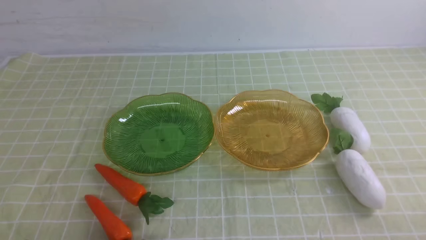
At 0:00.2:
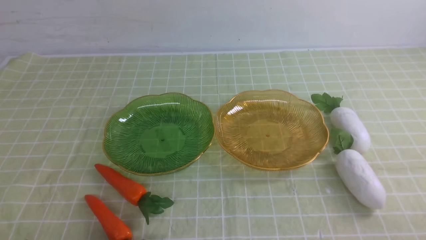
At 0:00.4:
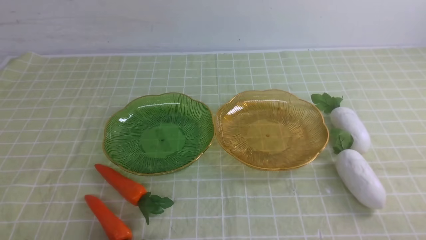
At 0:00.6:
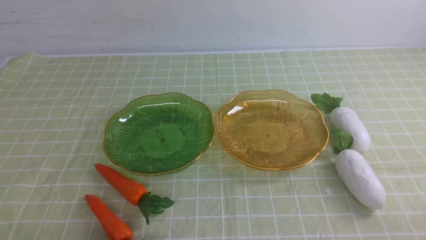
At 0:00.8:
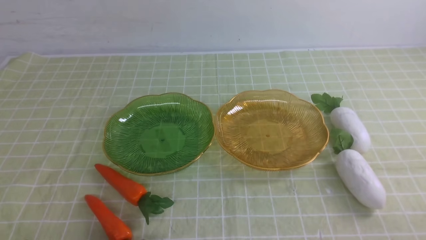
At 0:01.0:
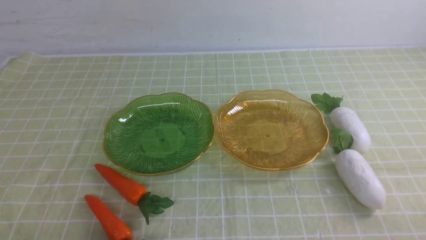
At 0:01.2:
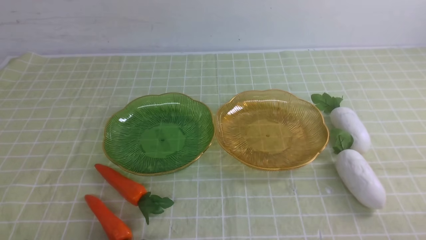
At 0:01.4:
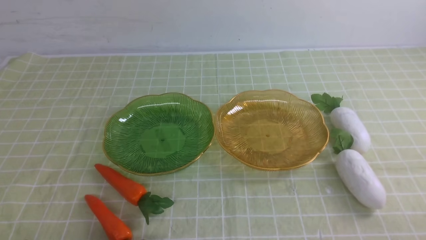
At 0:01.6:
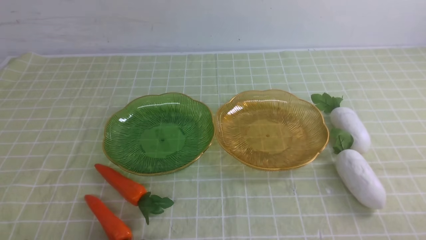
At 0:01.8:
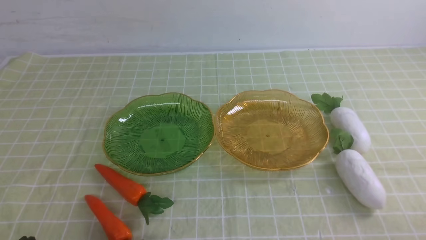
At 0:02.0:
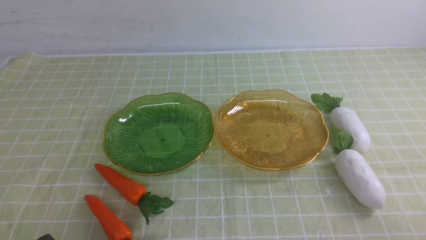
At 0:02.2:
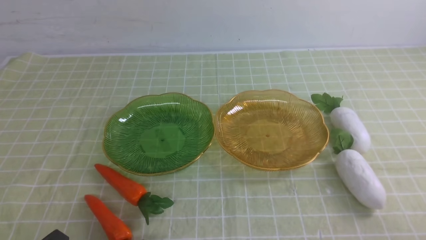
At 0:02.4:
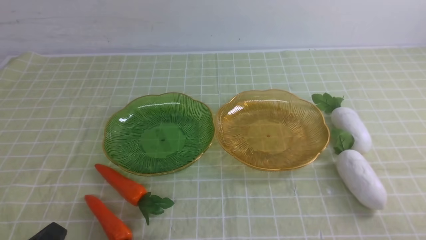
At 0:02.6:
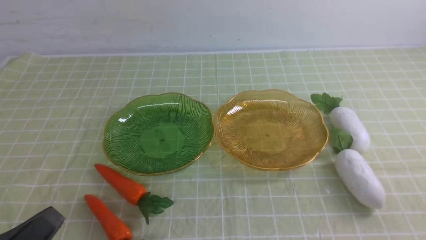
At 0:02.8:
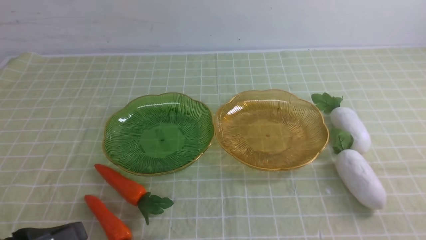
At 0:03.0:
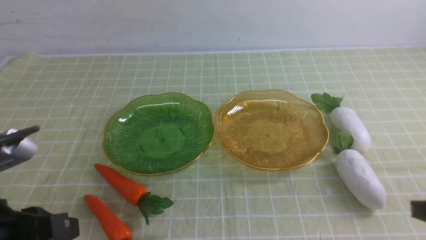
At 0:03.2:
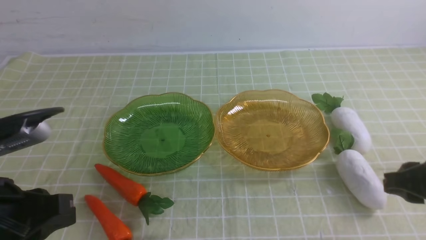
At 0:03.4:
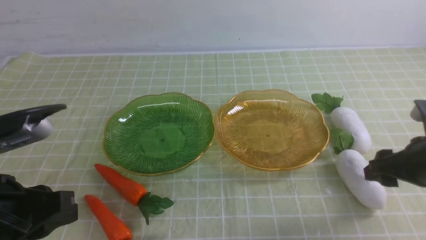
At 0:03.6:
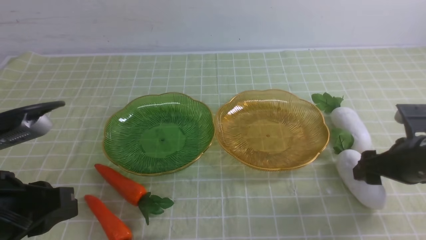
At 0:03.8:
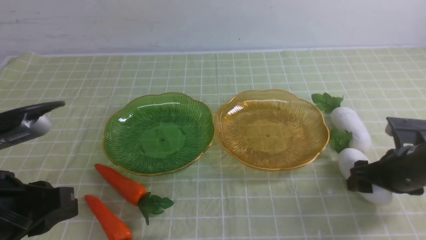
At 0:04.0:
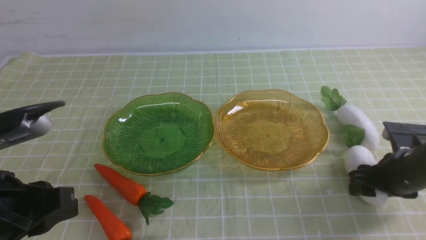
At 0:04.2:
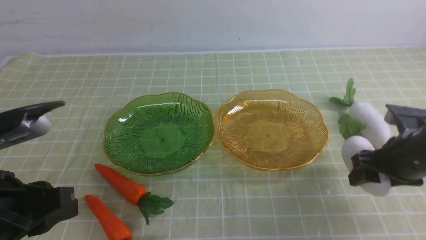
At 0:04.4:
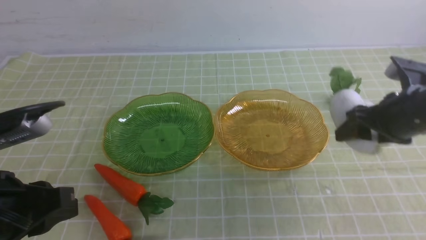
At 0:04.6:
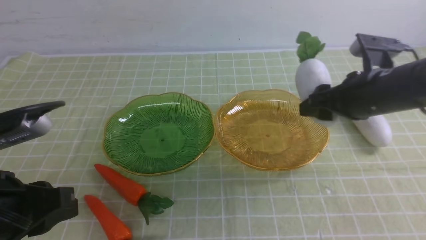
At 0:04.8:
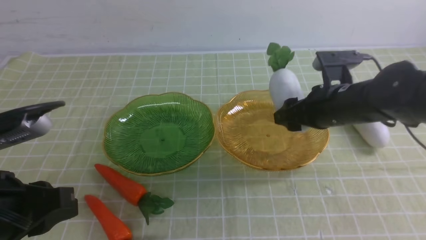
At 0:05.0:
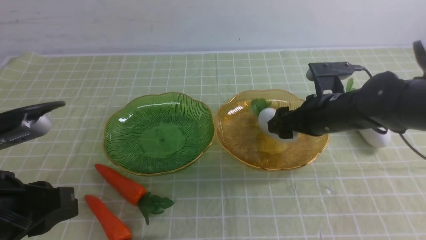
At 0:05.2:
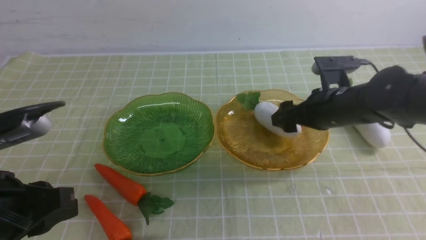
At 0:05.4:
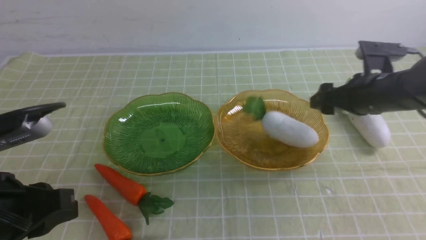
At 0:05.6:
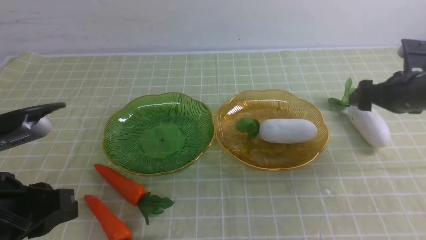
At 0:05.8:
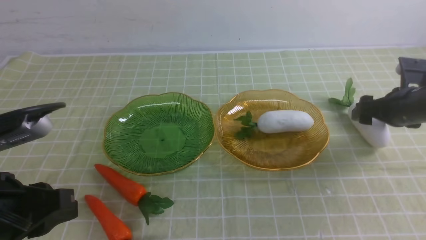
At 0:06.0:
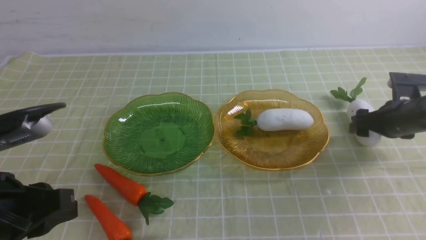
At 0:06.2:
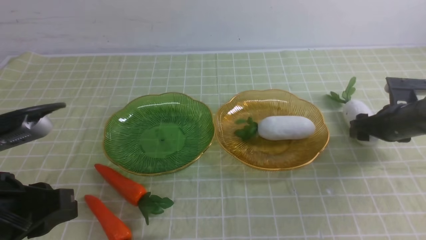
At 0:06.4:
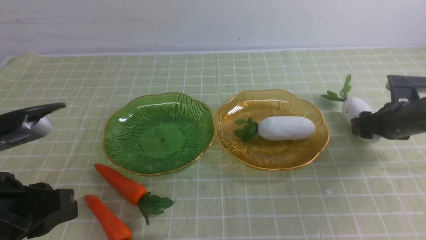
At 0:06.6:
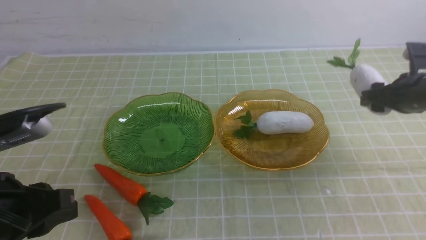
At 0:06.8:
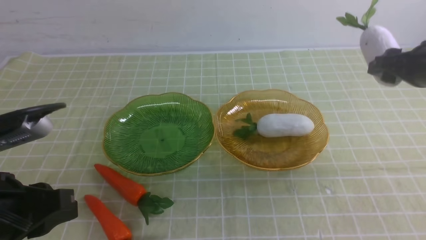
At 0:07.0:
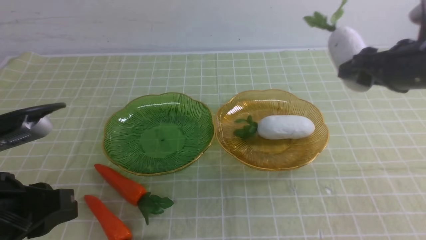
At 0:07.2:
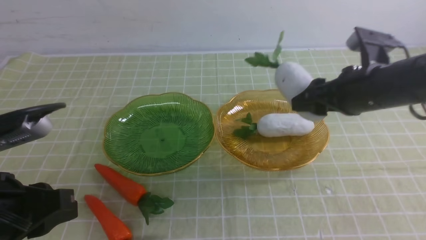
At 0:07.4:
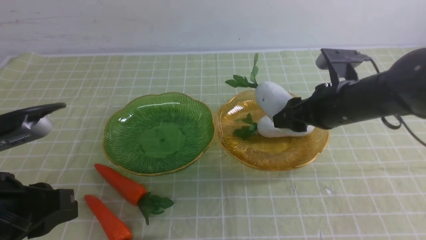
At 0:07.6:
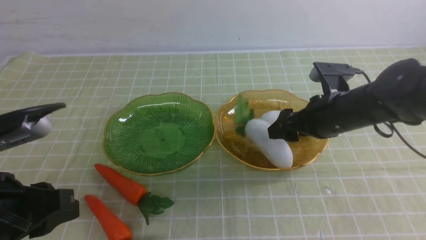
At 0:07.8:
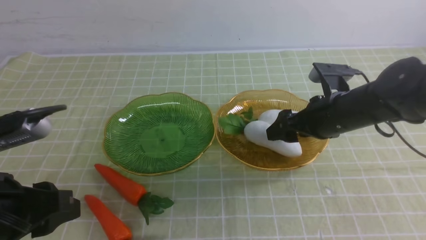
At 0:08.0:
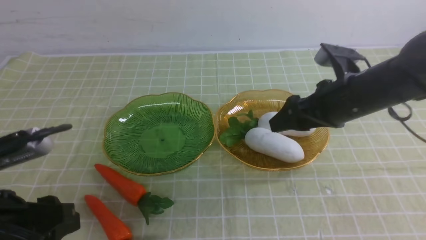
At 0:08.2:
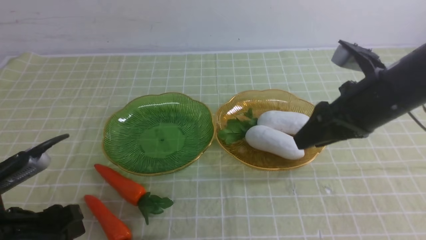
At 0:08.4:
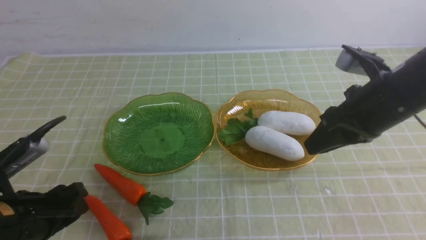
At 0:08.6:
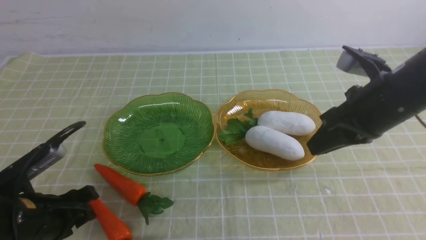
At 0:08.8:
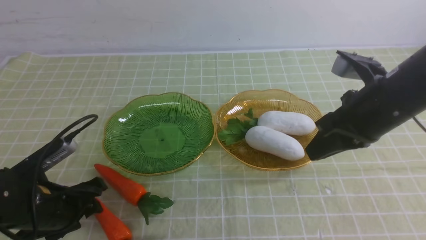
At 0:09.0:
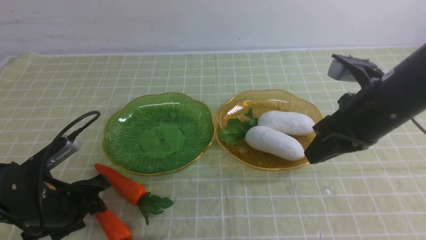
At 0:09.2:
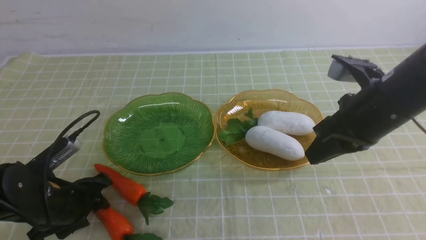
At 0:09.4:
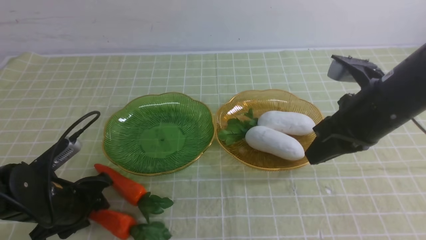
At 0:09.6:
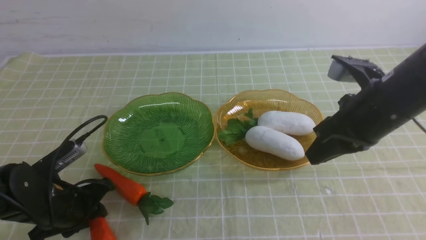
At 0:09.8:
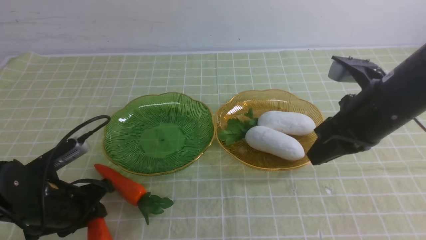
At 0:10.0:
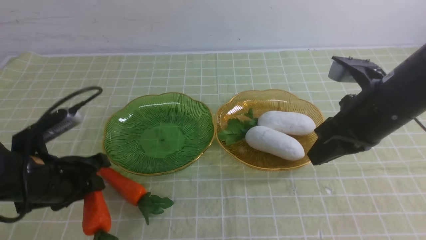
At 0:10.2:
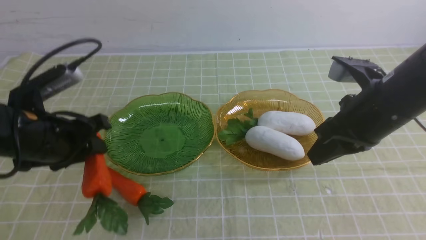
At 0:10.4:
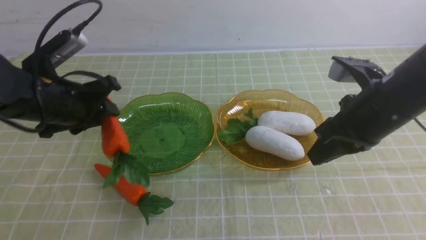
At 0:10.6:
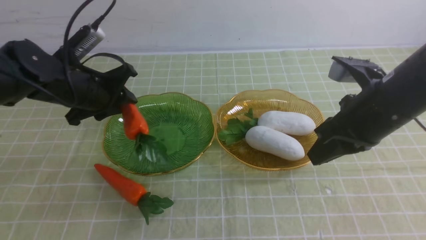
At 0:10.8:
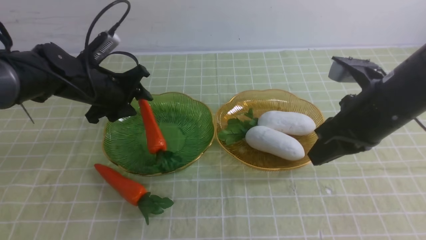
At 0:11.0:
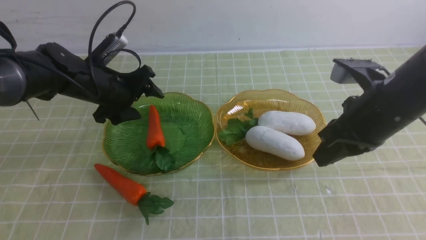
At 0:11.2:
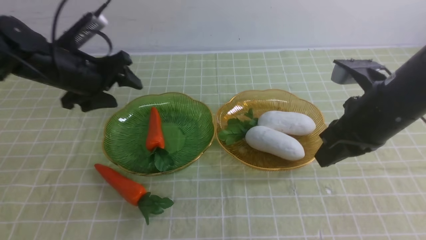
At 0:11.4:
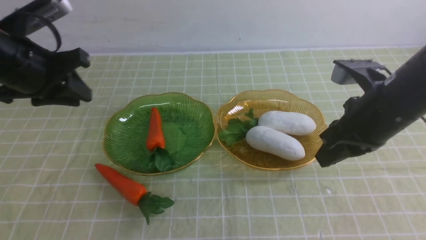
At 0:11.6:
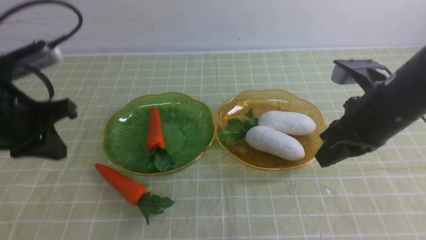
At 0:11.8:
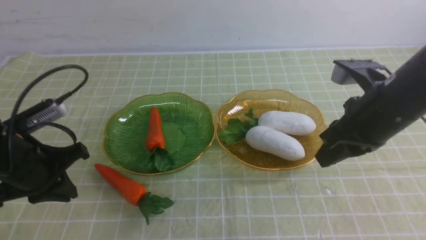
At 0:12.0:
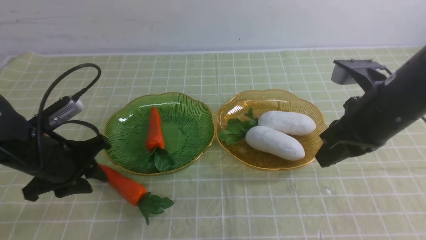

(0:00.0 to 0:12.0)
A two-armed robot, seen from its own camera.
Step, 0:00.0 - 0:08.2: use the right arm to grab a radish and put it into the right plate.
0:00.0 - 0:01.6: The two grippers keep their place.
0:01.6 - 0:03.0: The left gripper moves upward and forward, about 15 cm.
0:03.0 - 0:04.4: The right gripper goes some 15 cm forward, and opens up.
0:04.4 - 0:06.0: The right gripper heads downward, to the right and forward, covering approximately 15 cm.
0:06.0 - 0:07.6: The right gripper goes about 15 cm to the left and upward.
0:07.6 - 0:09.0: The left gripper goes approximately 15 cm downward and forward. Meanwhile the right gripper moves upward and backward, roughly 10 cm, and closes.
0:09.0 - 0:10.4: The left gripper goes approximately 15 cm upward and forward.
0:10.4 - 0:12.0: The left gripper goes some 5 cm downward, goes forward and returns, approximately 10 cm each way, and opens and closes again.

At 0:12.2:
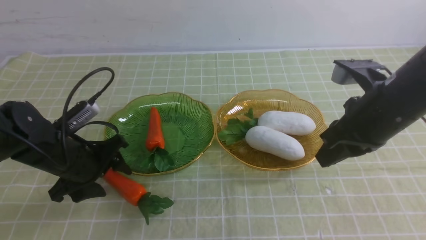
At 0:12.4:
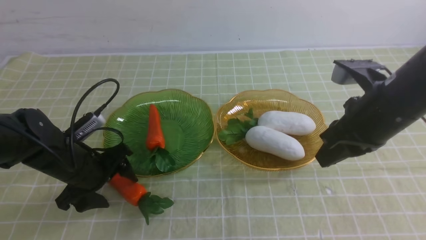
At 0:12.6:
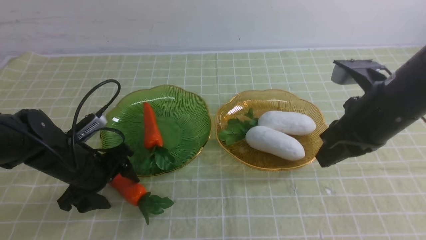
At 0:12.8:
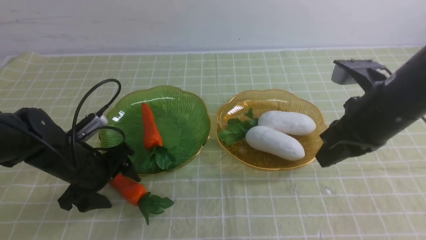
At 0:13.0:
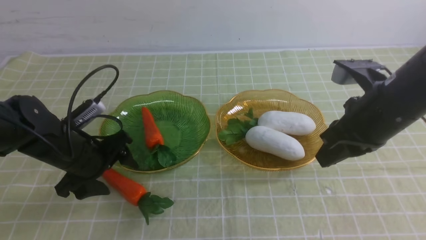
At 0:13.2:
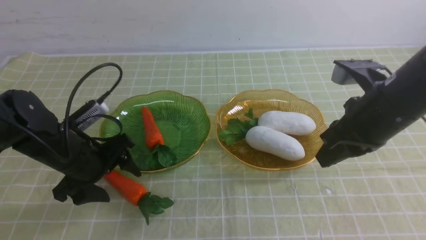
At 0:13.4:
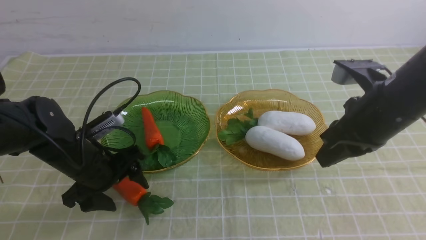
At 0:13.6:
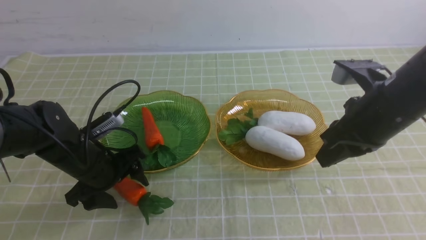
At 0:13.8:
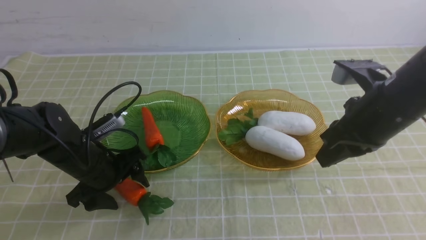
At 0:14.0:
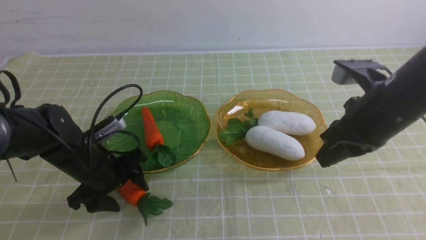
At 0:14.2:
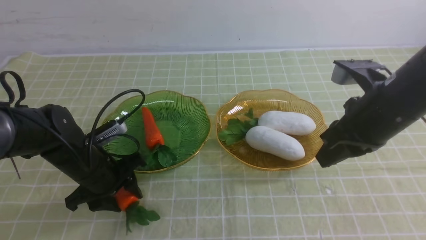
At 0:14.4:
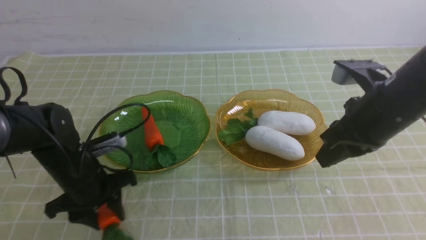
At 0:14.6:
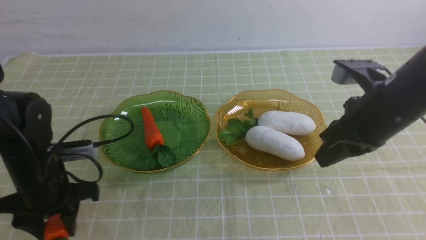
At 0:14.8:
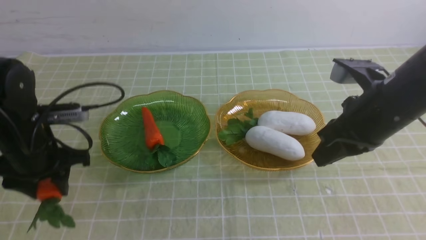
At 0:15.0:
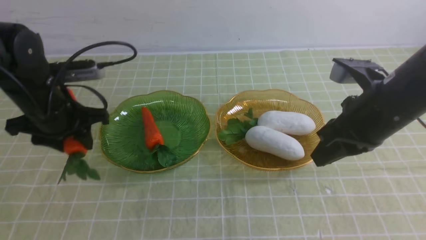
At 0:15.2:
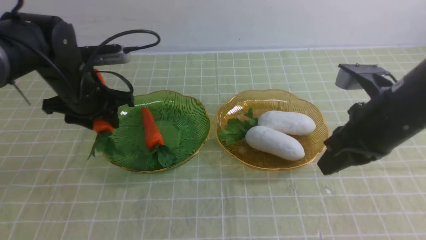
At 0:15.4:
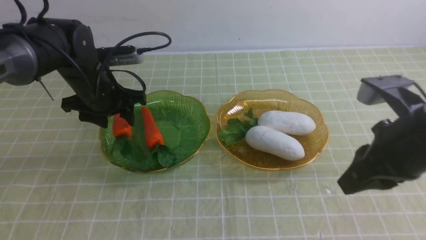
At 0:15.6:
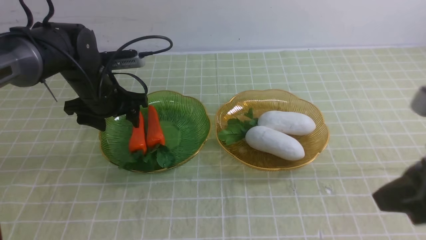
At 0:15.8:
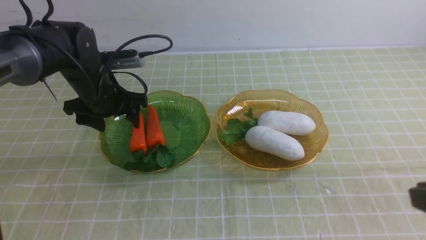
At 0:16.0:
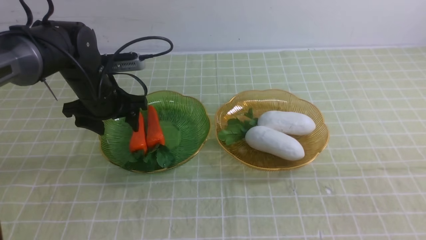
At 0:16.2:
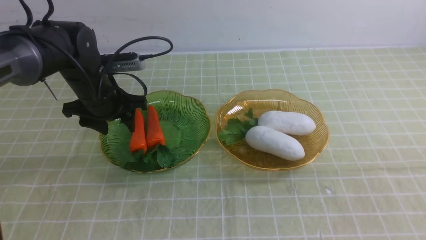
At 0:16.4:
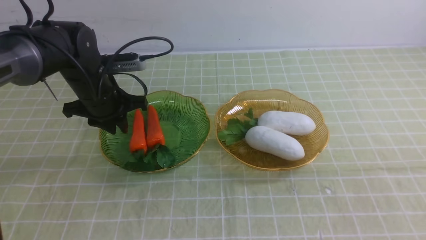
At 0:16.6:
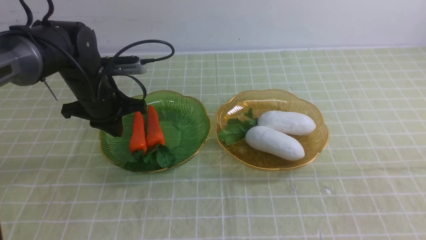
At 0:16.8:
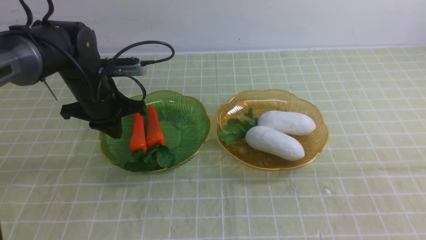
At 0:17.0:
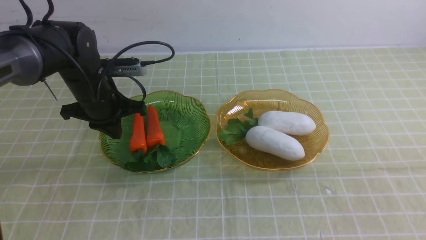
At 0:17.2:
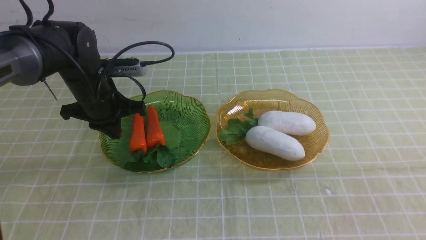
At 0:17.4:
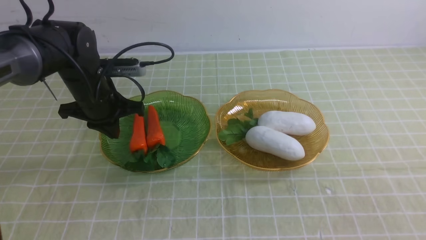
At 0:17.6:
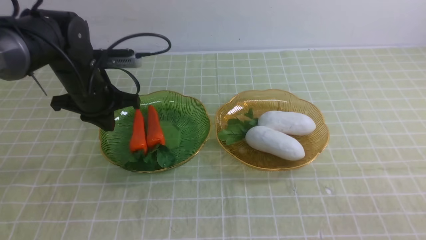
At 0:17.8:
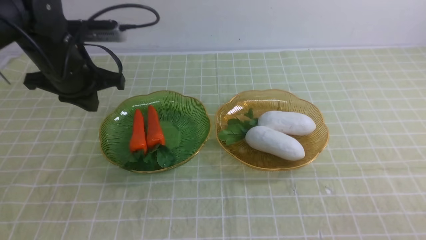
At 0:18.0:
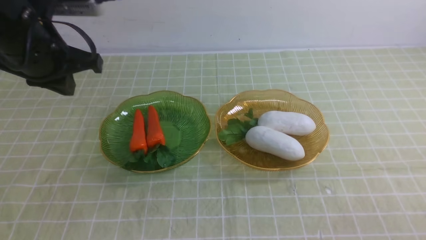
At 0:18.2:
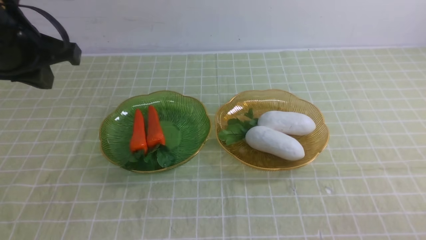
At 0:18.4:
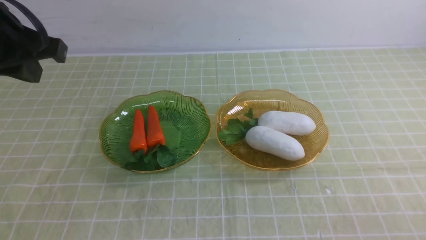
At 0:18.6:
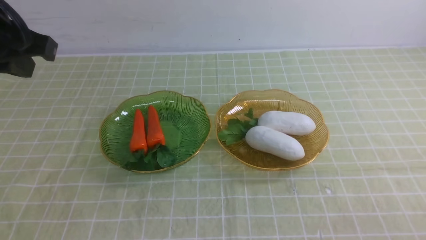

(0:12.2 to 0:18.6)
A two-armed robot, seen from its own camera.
Step, 0:12.2 - 0:16.6: use the left arm to grab a carrot and put it into the left plate.
0:12.2 - 0:13.8: The grippers move only a little.
0:13.8 - 0:15.4: The left gripper shifts some 10 cm forward and upward. The right gripper heads backward, covering approximately 5 cm.
0:15.4 - 0:17.0: The right gripper moves backward and to the right, approximately 15 cm; the left gripper closes up.
0:17.0 - 0:18.6: The left gripper shifts approximately 25 cm upward and backward.
